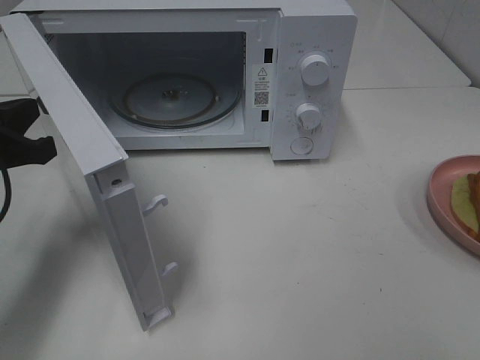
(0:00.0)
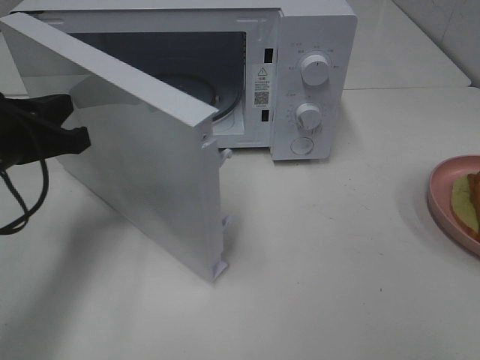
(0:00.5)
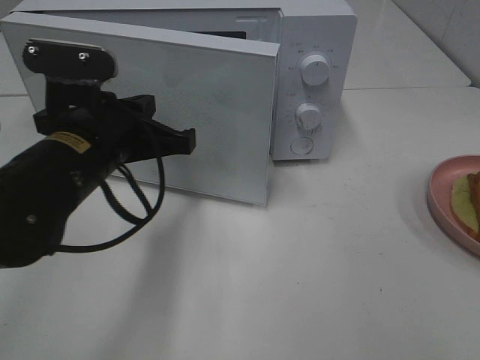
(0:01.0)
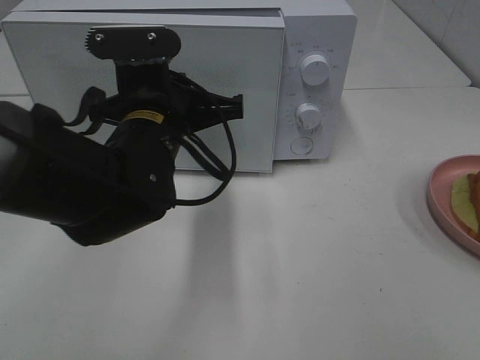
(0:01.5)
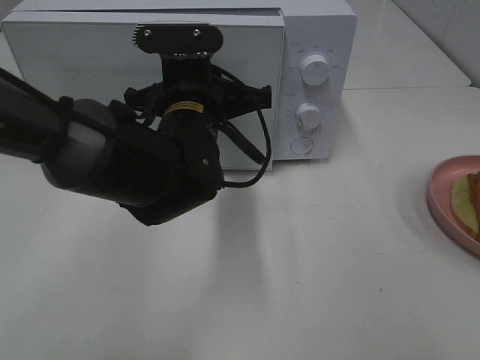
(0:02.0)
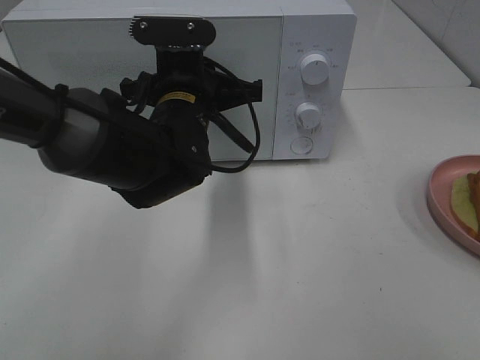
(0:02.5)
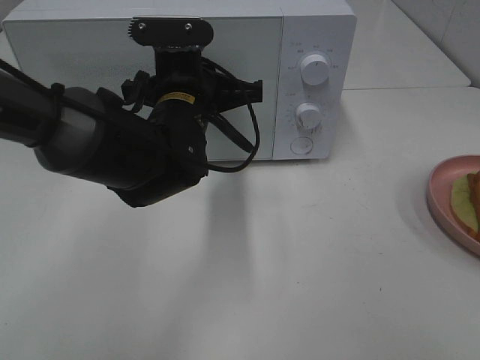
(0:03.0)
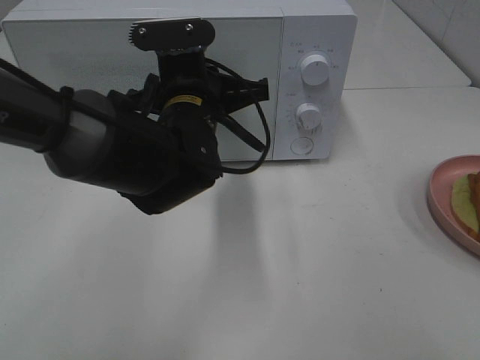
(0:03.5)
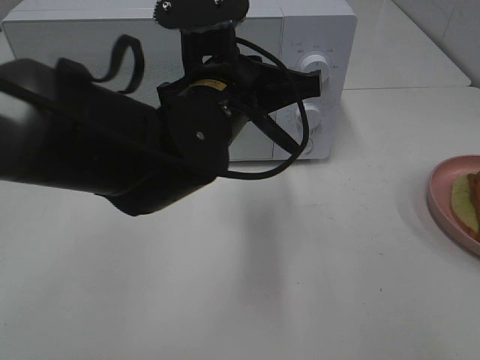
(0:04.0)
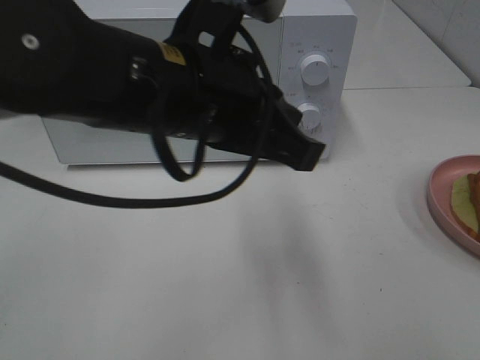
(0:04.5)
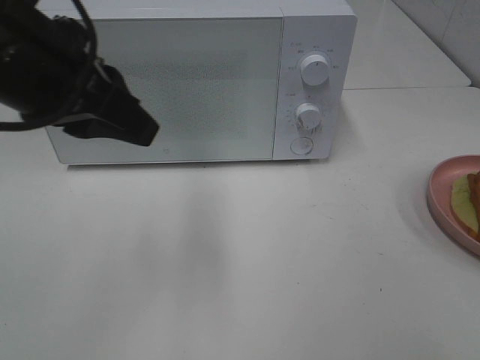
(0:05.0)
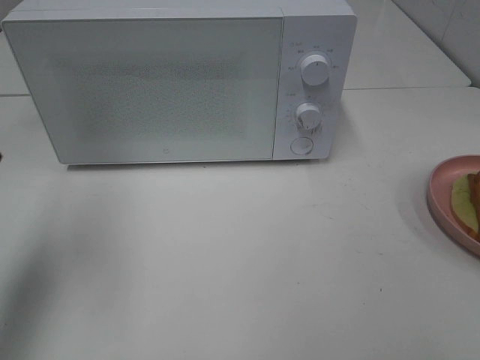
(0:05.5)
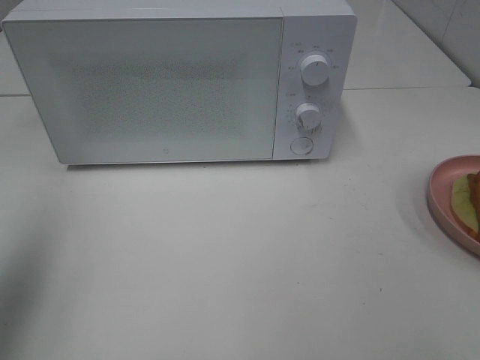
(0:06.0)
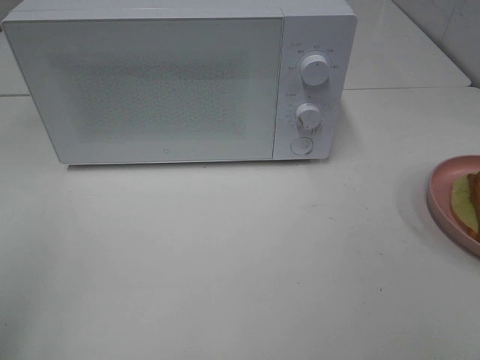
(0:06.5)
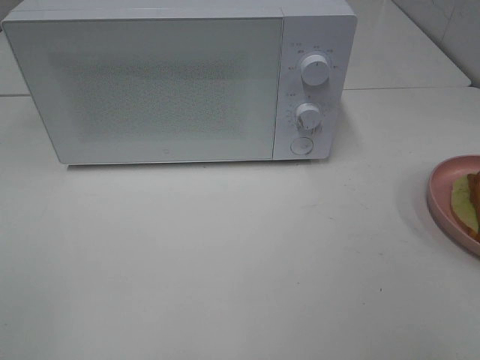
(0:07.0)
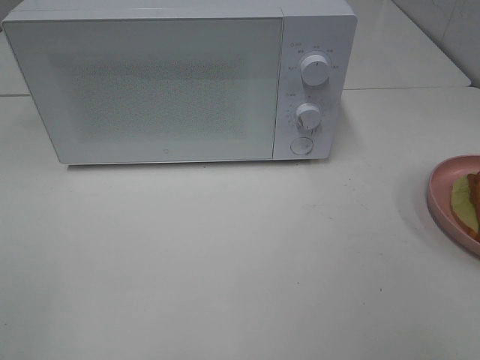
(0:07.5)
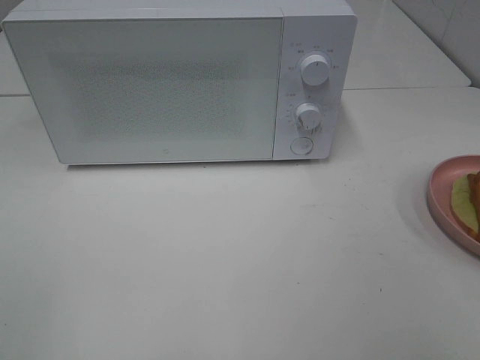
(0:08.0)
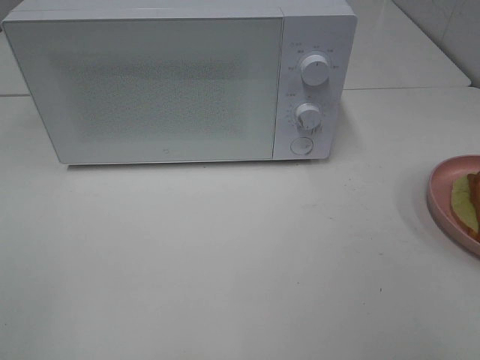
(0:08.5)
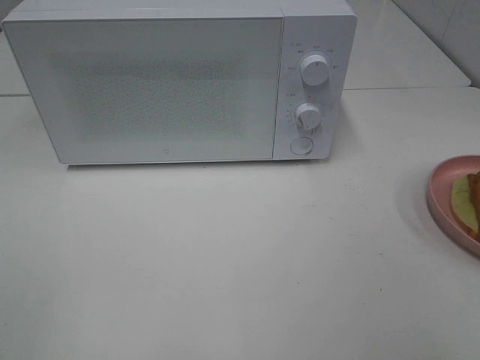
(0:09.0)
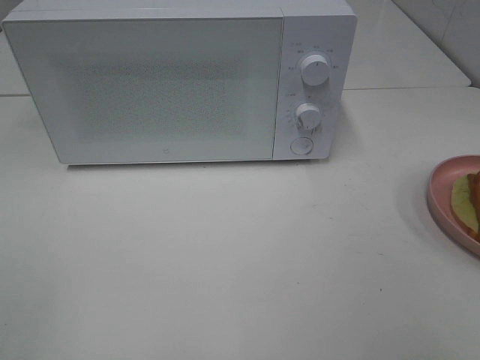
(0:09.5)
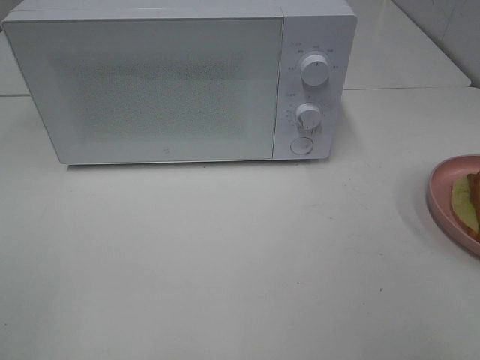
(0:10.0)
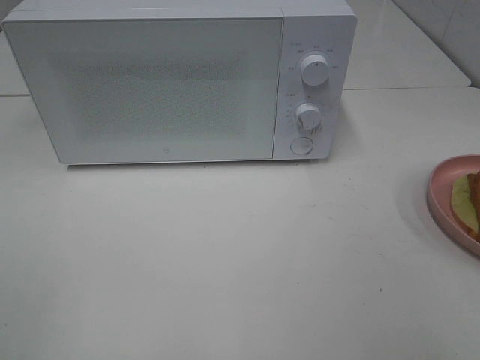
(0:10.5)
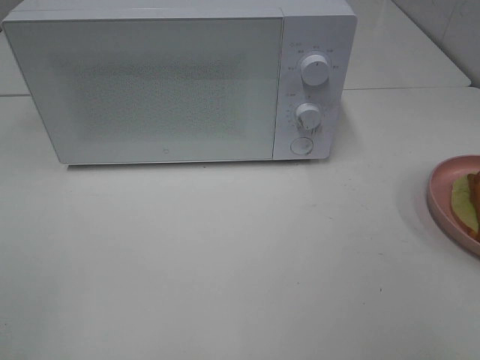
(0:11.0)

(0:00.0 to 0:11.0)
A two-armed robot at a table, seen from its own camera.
Task of the whole recording: Heat Sandwich.
Step, 0:00.0 - 0:03.5: Left hand: close the microwave door.
0:00.0 - 0:02.0: The left gripper heads to the right, covering approximately 20 cm.
0:02.0 - 0:03.5: The grippers make only small movements.
0:03.5 - 0:05.5: The left gripper goes approximately 30 cm to the left and upward, and opens up.
0:05.5 - 0:07.5: The left gripper is displaced backward by some 25 cm.
0:07.5 - 0:11.0: The two grippers keep their place.

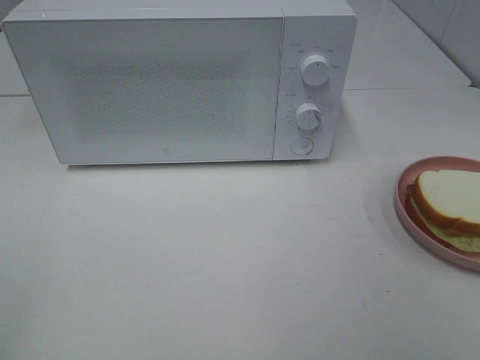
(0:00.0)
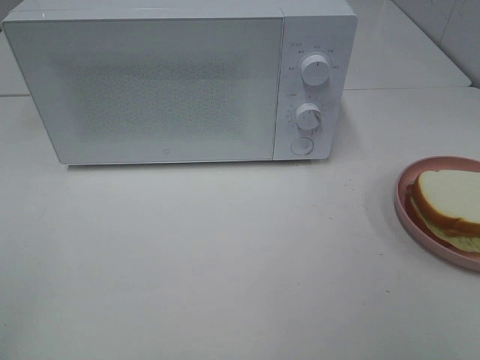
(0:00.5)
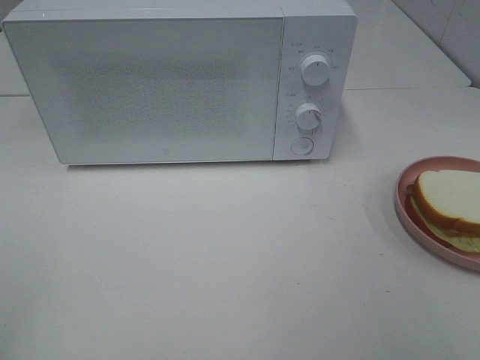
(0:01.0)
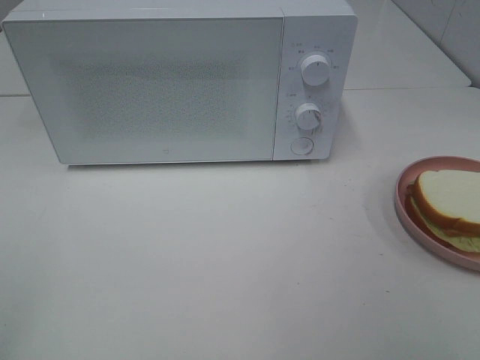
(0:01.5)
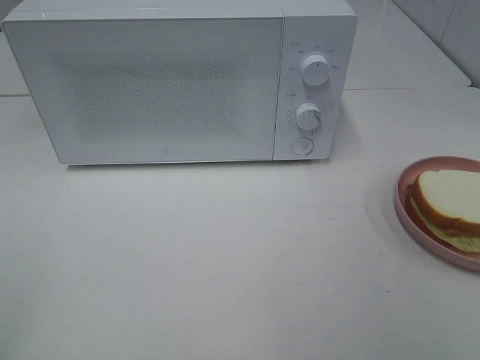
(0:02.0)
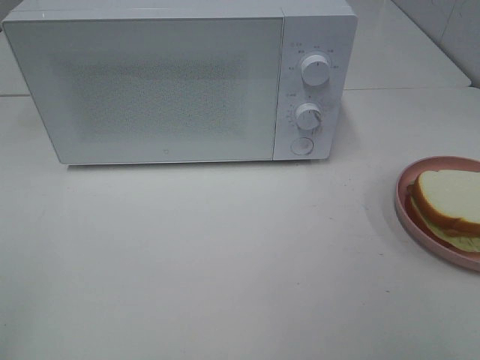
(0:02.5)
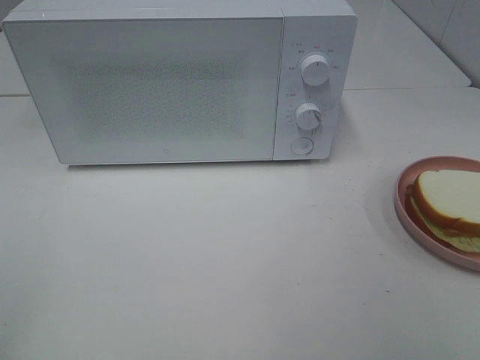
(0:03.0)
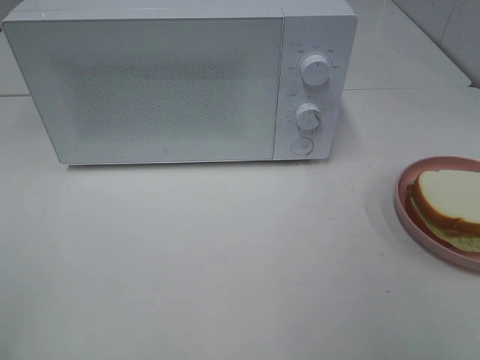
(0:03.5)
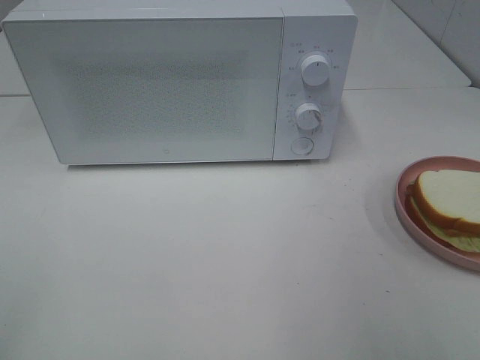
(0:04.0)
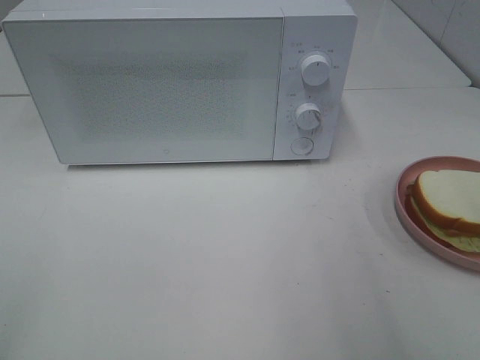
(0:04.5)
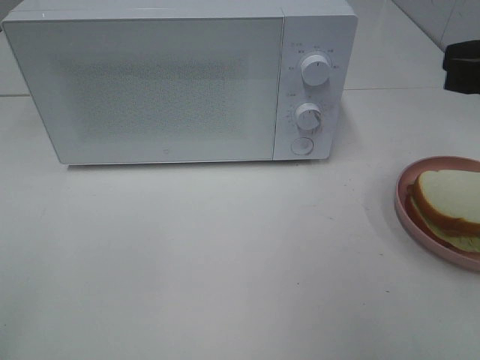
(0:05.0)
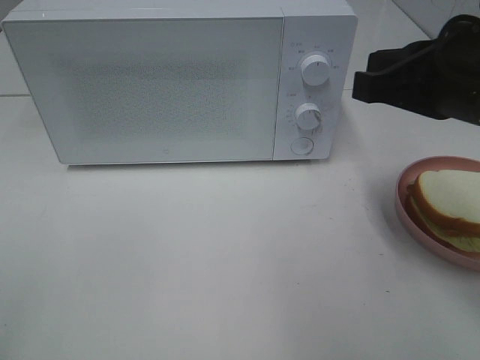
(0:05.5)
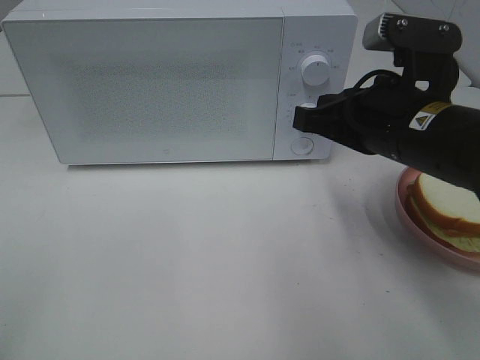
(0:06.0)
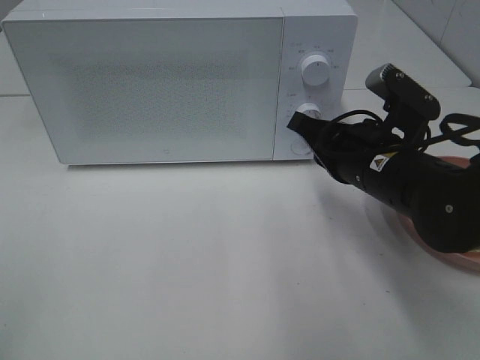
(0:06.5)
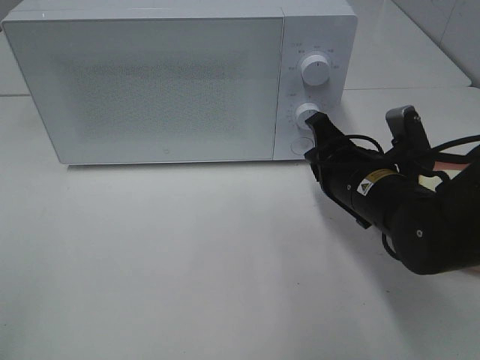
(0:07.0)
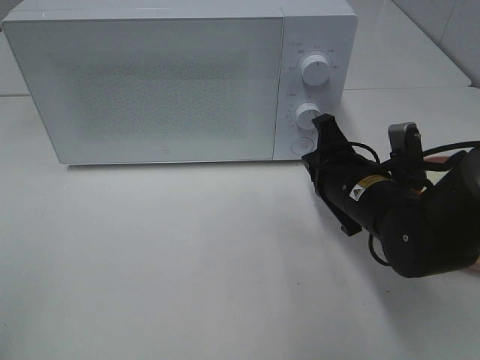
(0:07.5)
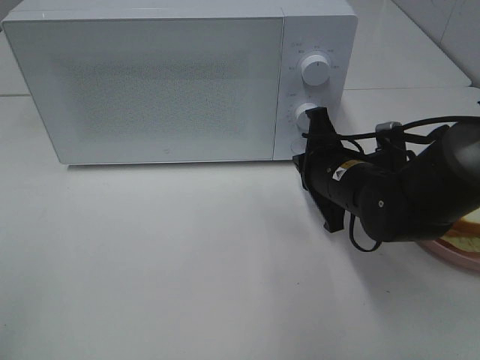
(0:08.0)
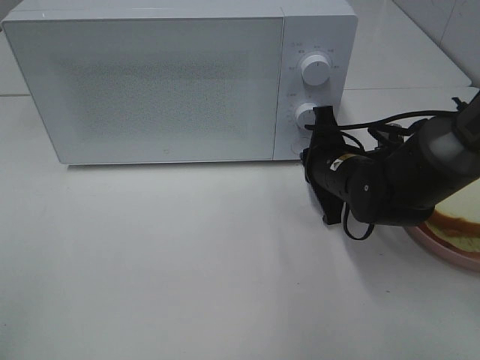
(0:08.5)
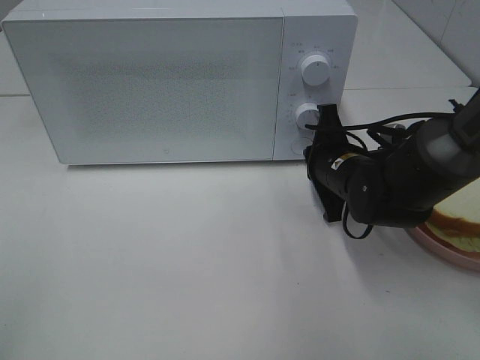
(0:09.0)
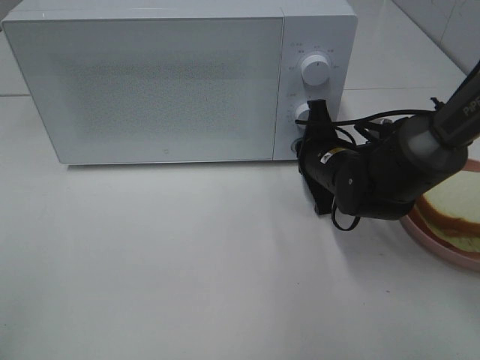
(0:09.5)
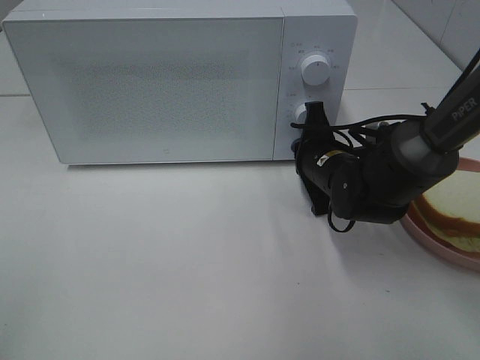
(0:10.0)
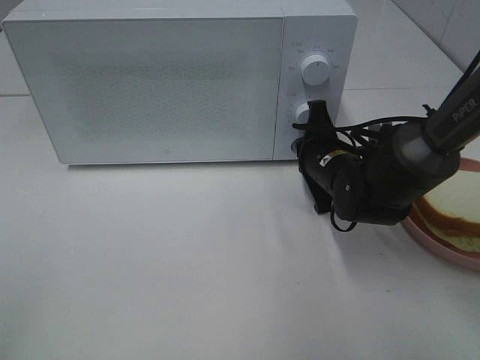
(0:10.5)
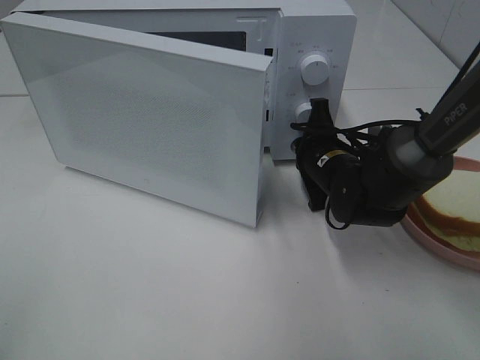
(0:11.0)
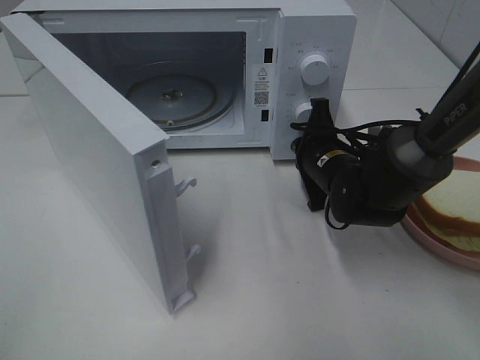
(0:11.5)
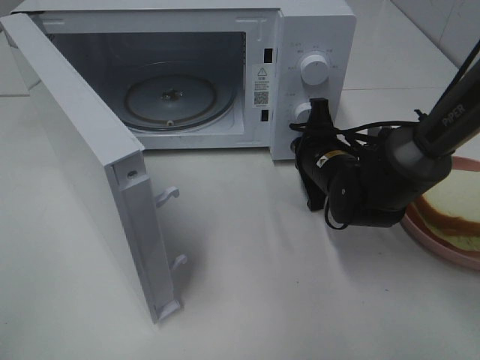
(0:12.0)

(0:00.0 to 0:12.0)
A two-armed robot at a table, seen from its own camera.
Task of the whole recording: Heat Sandwich.
0:00.0 - 0:02.0: Both grippers stay about where they are.
0:04.0 - 0:06.0: The right gripper goes approximately 25 cm forward, to the left and downward, and closes up.
0:06.0 - 0:08.0: The right gripper travels downward and forward by roughly 10 cm.
0:08.0 - 0:10.0: The right gripper moves some 5 cm.

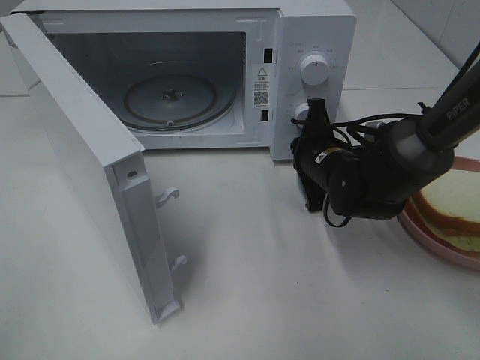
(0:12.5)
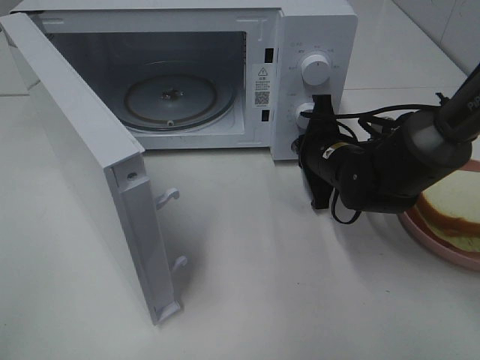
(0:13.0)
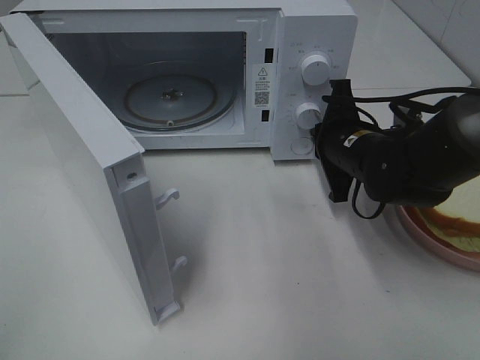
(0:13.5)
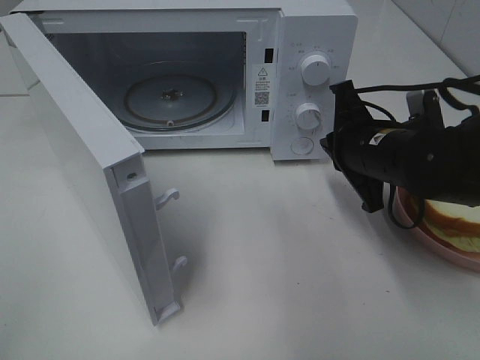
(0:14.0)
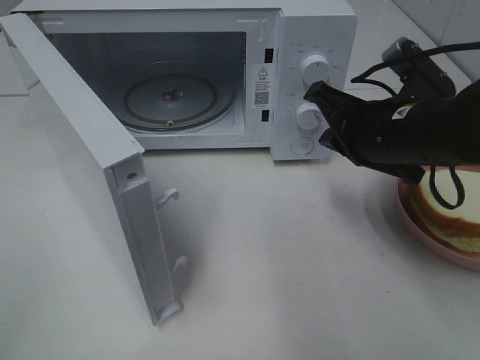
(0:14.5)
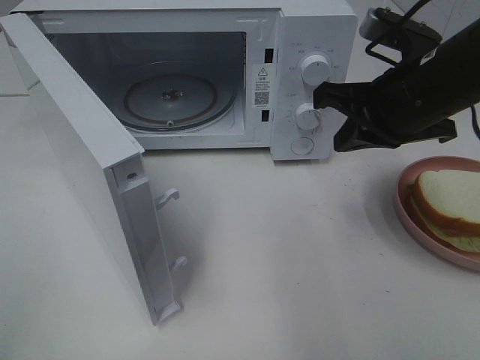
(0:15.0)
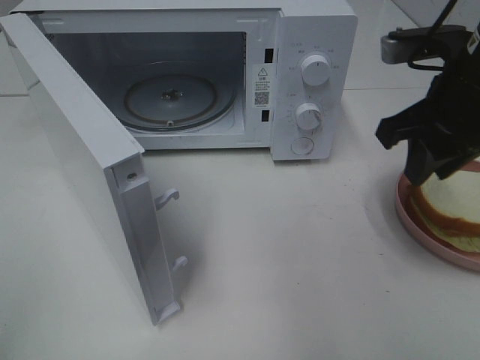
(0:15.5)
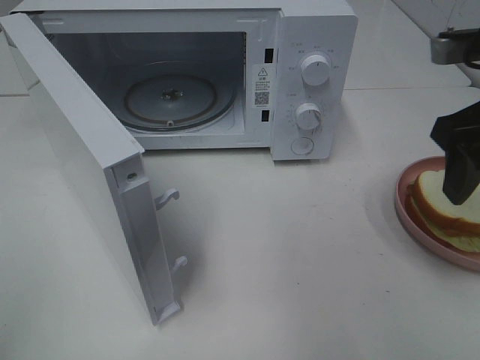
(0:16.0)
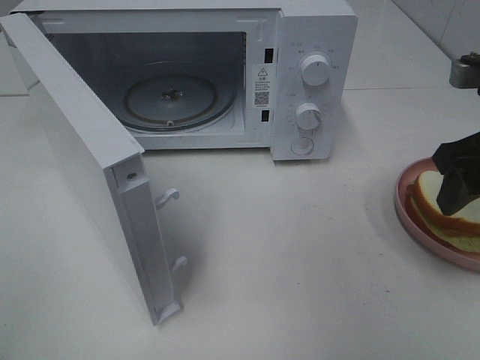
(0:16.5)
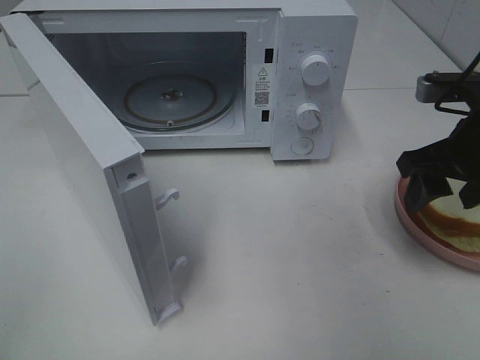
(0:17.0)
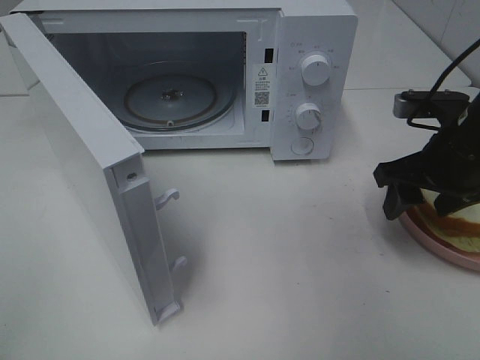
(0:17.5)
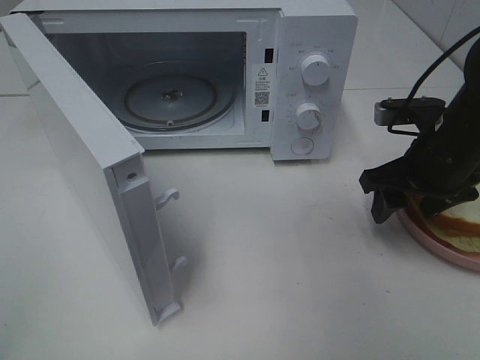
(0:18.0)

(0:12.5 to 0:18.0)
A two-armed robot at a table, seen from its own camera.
Task of the whole recording: Heat Sandwich.
0:12.5 - 0:14.5: The right gripper goes roughly 15 cm upward and backward.
0:14.5 - 0:16.0: The right gripper is displaced upward and to the right by some 10 cm, and opens up.
0:16.0 - 0:18.0: The right gripper moves downward and forward, about 15 cm.
